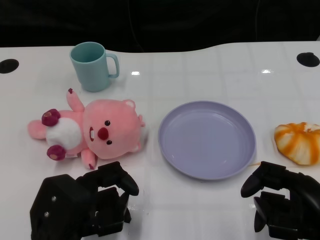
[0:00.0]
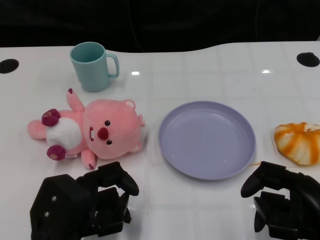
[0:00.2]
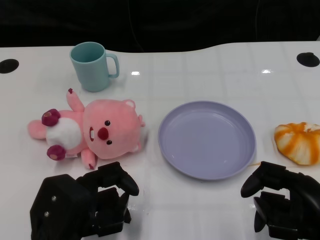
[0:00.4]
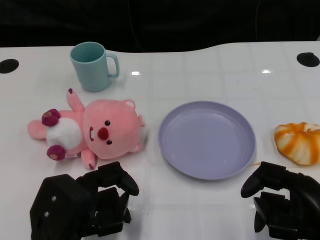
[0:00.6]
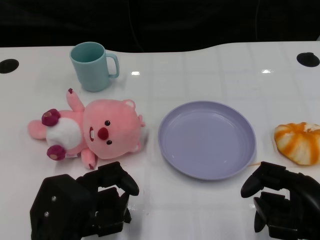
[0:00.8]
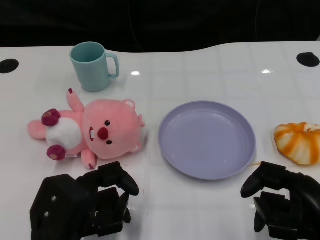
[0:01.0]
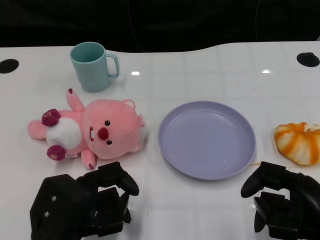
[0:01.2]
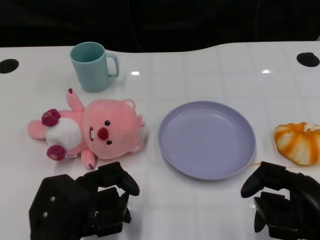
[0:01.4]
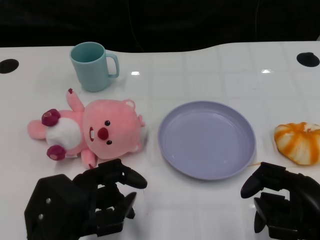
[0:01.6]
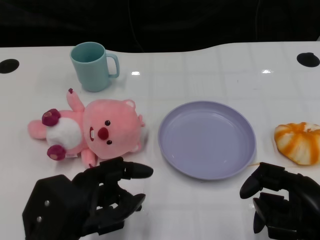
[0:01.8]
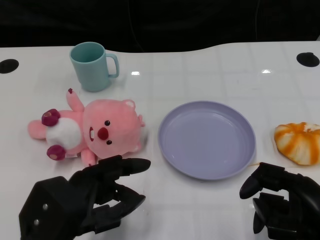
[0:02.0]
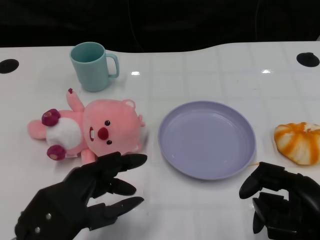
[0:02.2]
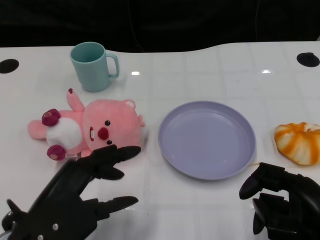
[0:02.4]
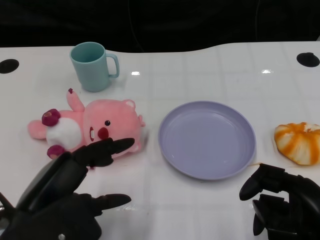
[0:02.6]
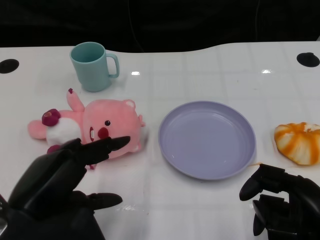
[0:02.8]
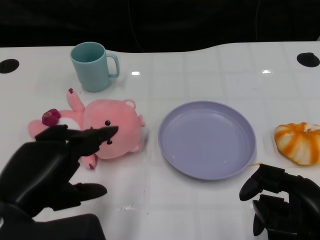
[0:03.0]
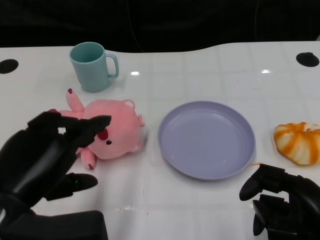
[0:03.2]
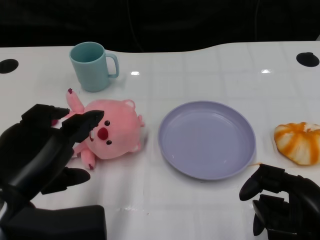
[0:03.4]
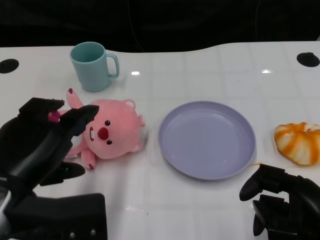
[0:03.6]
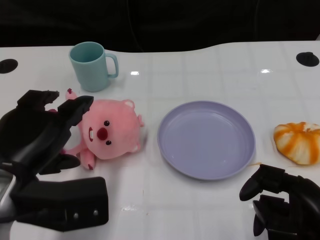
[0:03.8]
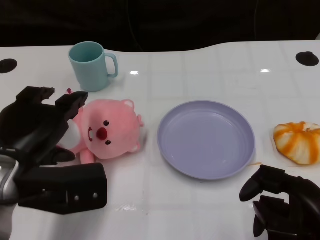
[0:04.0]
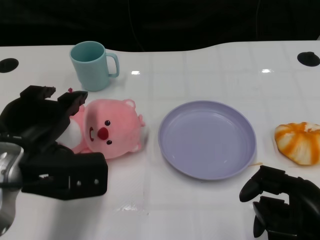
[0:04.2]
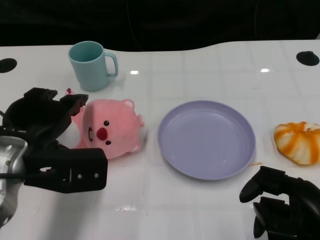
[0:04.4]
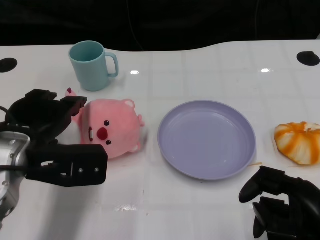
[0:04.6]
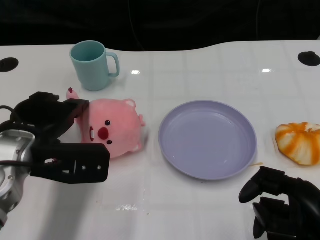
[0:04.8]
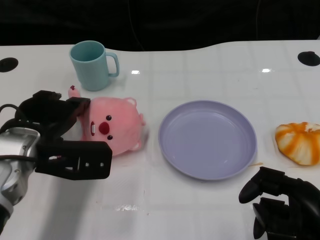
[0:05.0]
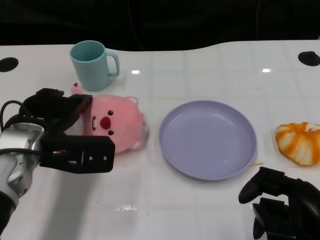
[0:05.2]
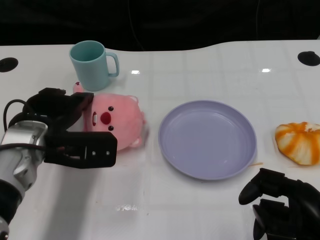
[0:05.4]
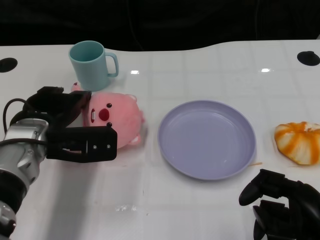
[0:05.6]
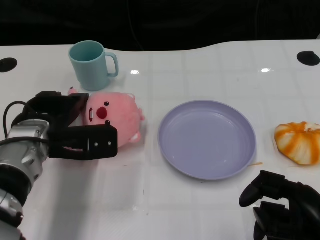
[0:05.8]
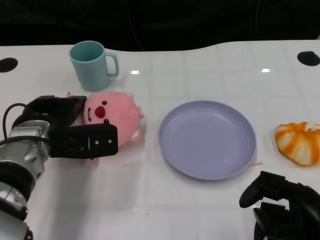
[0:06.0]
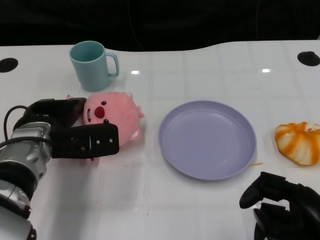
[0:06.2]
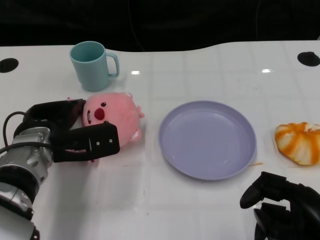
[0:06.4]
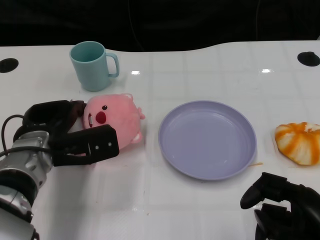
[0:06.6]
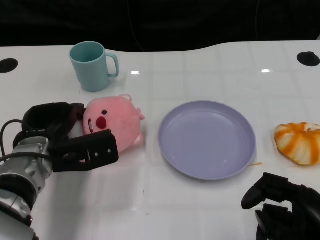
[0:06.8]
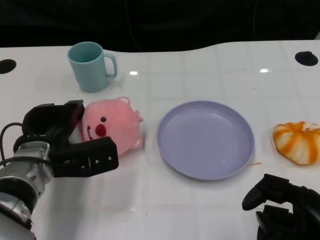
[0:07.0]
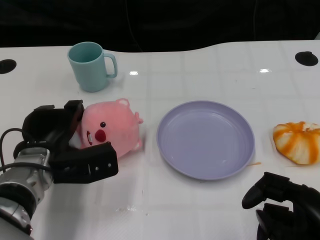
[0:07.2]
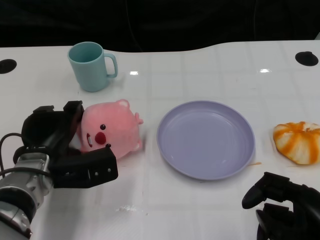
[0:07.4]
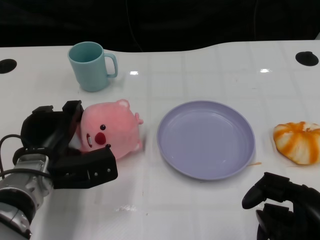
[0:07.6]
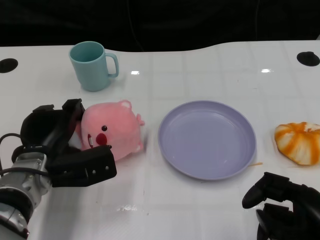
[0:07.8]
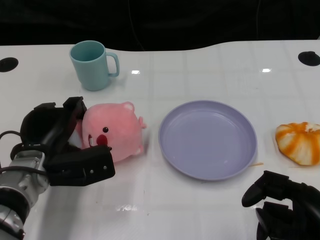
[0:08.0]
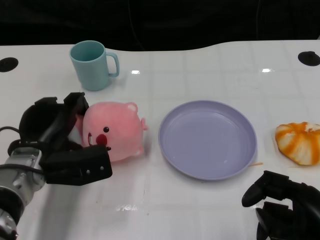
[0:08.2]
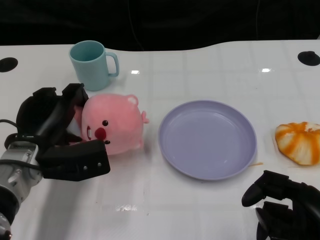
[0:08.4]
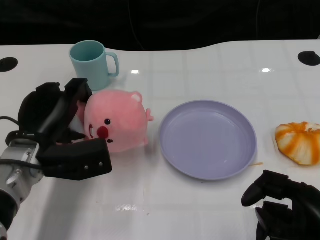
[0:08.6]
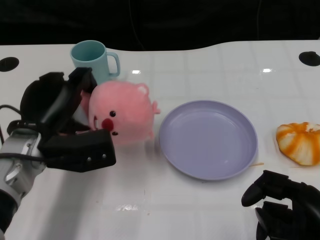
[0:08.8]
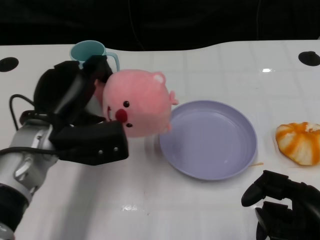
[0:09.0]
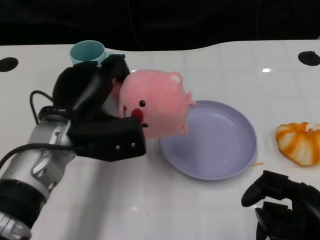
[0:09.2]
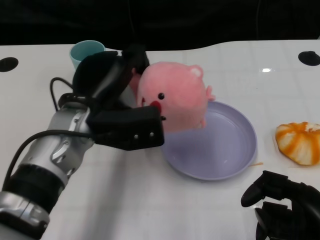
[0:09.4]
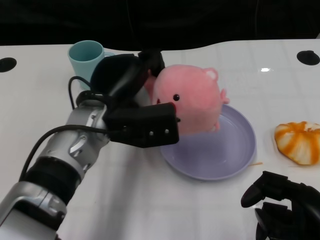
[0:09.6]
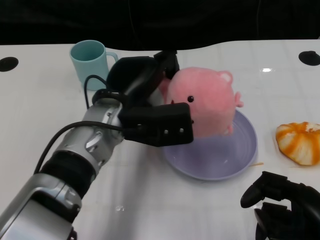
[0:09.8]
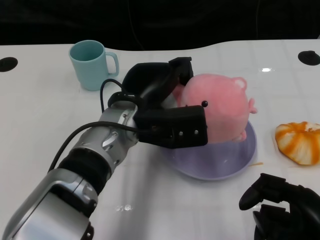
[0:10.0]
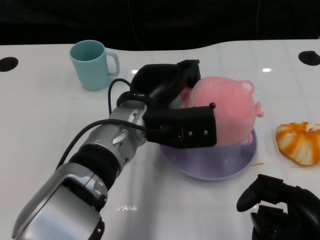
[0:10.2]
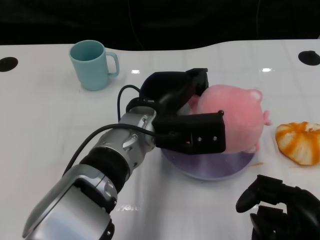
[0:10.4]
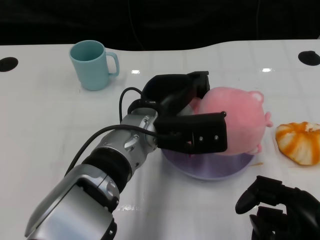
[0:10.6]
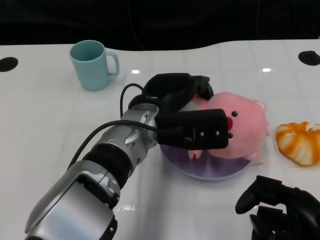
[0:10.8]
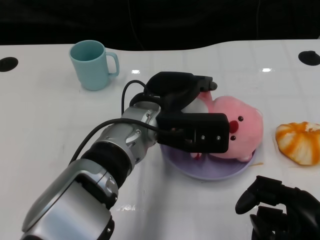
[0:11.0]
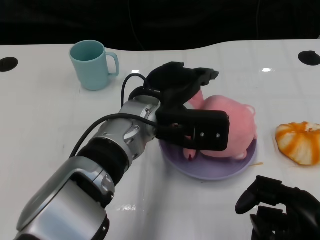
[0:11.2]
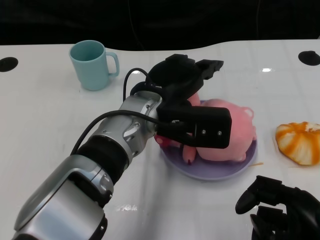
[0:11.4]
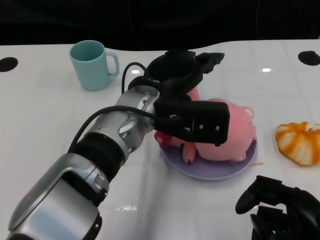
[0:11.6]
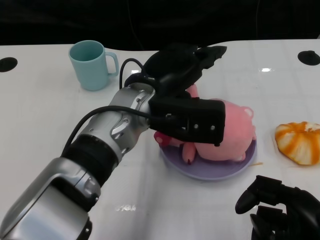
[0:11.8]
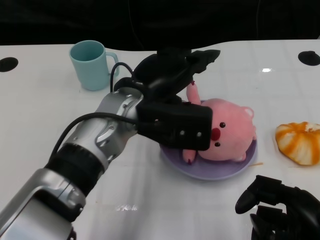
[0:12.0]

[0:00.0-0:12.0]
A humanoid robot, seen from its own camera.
Task of the whole recording: Pick up the doll on one side of the plate and place it into the plate.
Step, 1.4 to 8.2 s: Grasp the pink doll with the left gripper.
Step, 8.4 to 11.8 s: Place the pink doll into the plate with the left gripper.
1.6 to 3.0 s: The left hand goes roughly 5 cm upward.
3.0 to 4.4 s: The left hand goes approximately 10 cm forward.
4.4 to 6.0 s: The left hand heads forward, covering some 5 cm.
6.0 to 7.6 s: The left hand changes place by approximately 5 cm.
7.6 to 9.0 s: The left hand is displaced upward by some 5 cm.
9.0 to 10.4 s: The left hand travels to the right by roughly 15 cm.

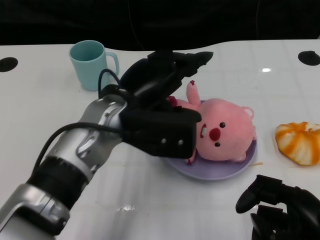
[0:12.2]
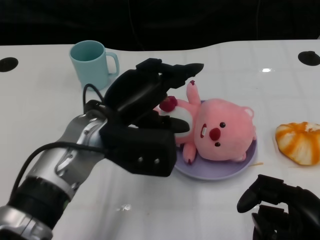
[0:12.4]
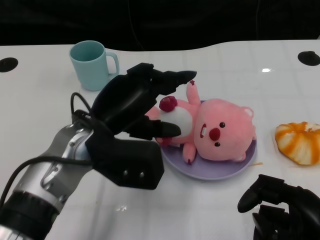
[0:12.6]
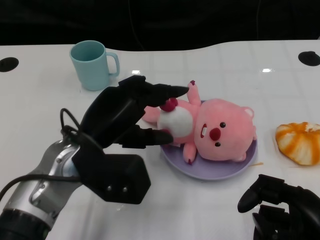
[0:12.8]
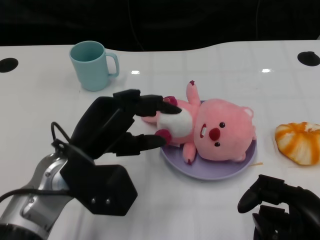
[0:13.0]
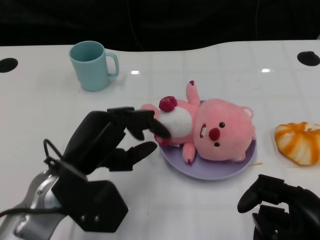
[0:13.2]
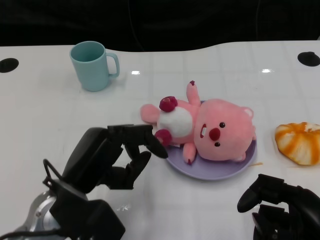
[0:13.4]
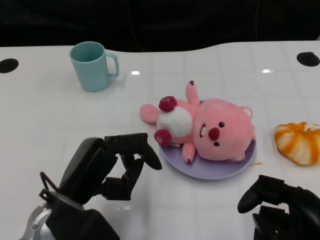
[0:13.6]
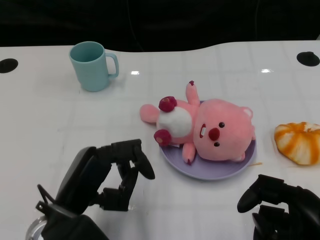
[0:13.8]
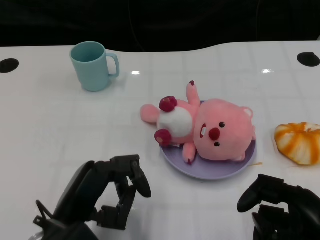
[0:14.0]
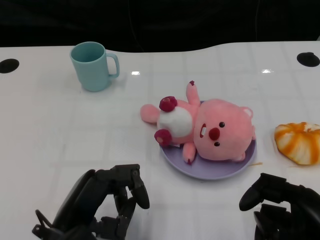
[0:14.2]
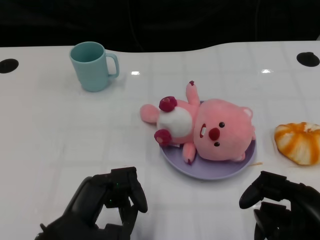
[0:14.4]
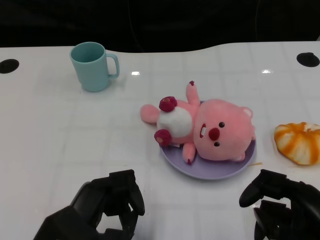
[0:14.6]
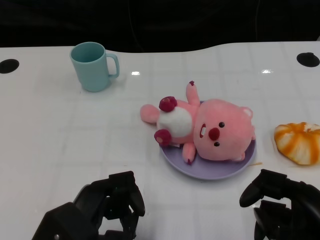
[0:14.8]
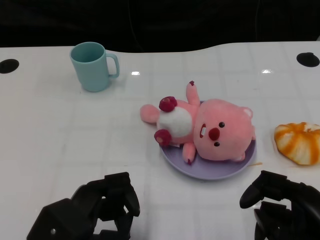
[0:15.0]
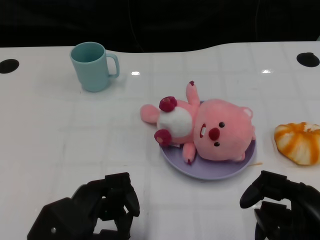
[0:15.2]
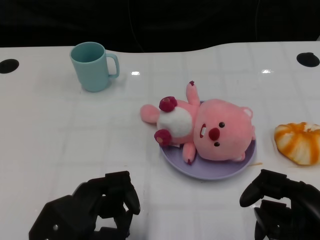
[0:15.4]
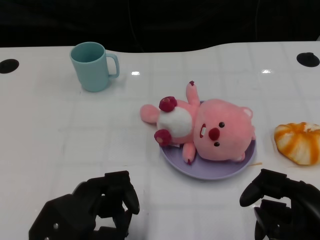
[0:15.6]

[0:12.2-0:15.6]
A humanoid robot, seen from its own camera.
Task of the whole recording: Pick up the doll on one side of the plate and place it into the plate.
12.2 to 13.8 s: The left hand goes approximately 15 cm backward, to the left and downward.

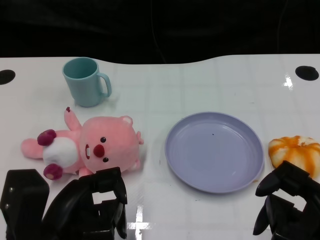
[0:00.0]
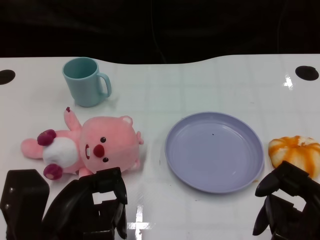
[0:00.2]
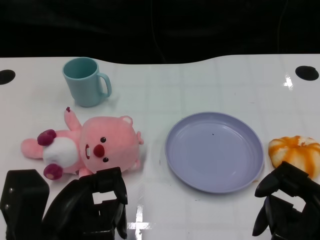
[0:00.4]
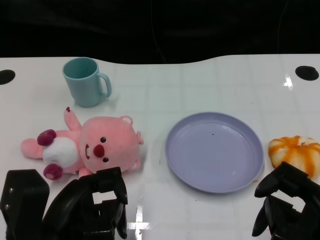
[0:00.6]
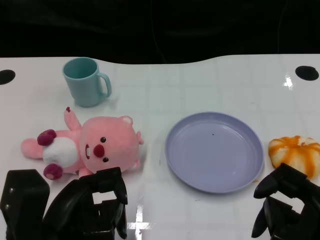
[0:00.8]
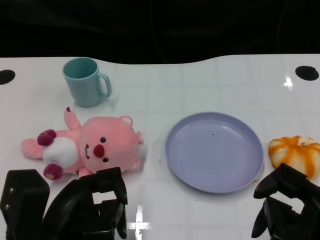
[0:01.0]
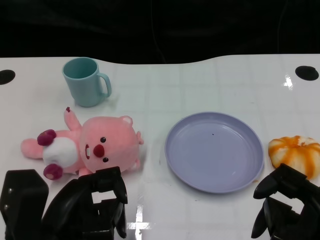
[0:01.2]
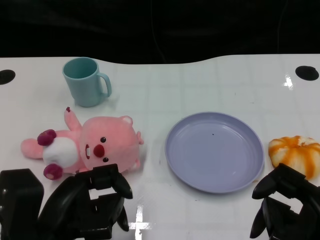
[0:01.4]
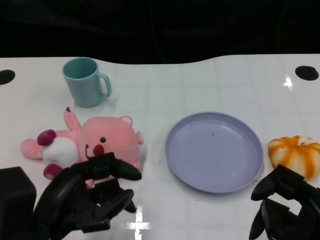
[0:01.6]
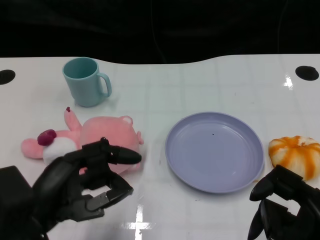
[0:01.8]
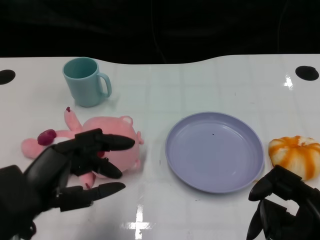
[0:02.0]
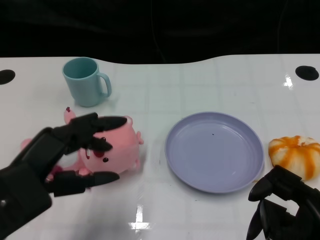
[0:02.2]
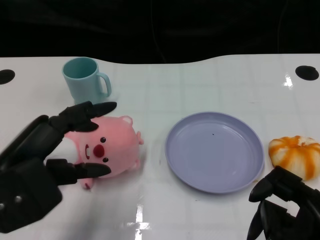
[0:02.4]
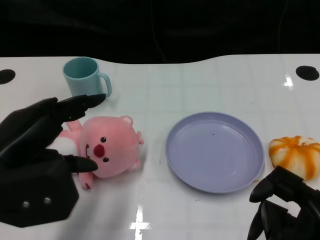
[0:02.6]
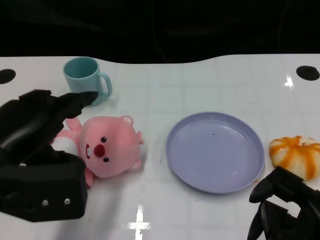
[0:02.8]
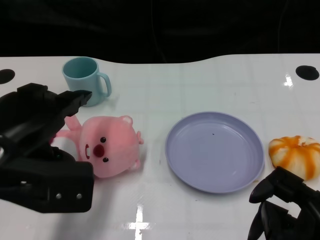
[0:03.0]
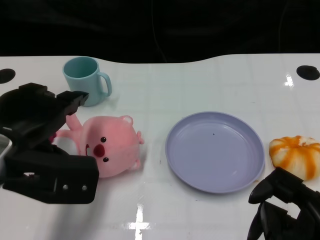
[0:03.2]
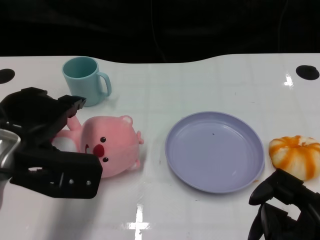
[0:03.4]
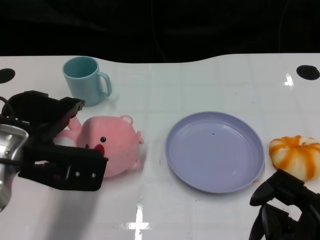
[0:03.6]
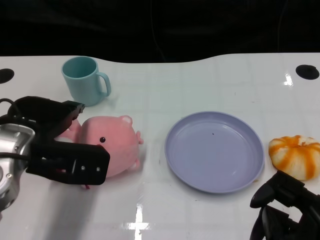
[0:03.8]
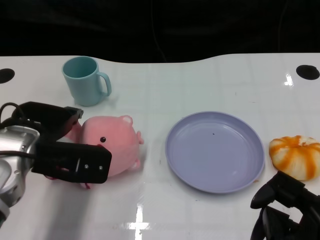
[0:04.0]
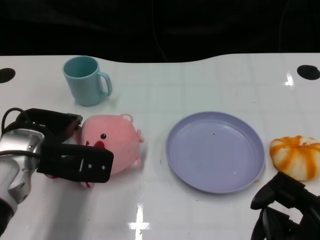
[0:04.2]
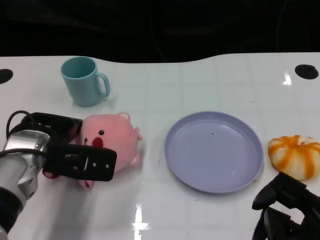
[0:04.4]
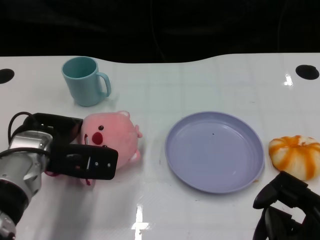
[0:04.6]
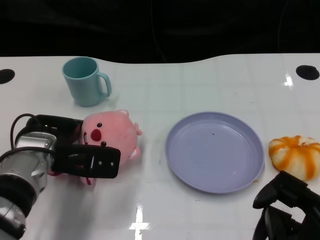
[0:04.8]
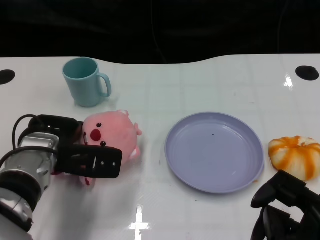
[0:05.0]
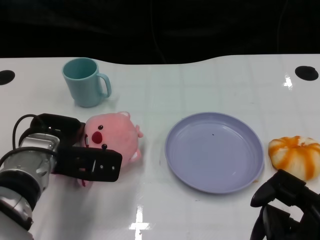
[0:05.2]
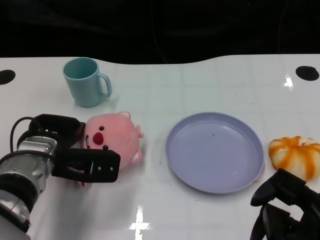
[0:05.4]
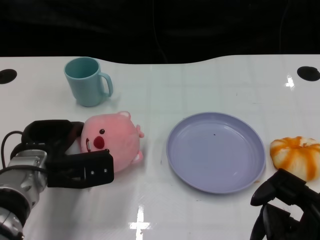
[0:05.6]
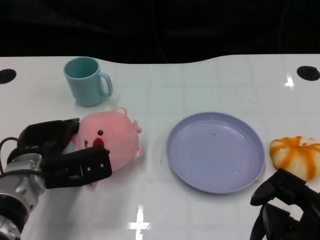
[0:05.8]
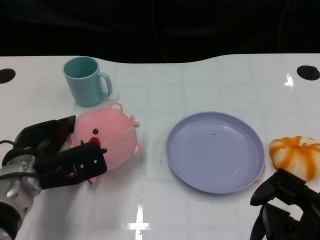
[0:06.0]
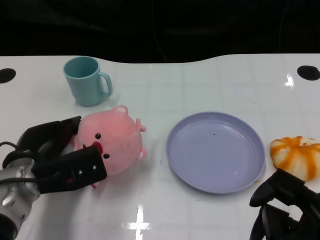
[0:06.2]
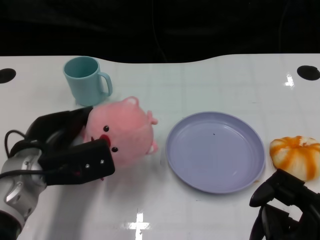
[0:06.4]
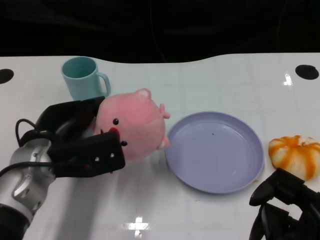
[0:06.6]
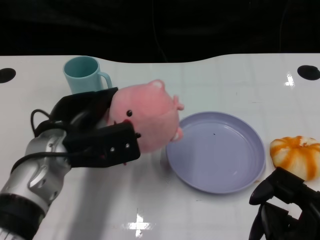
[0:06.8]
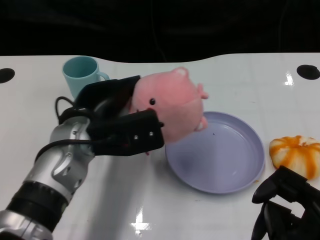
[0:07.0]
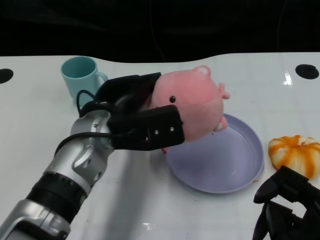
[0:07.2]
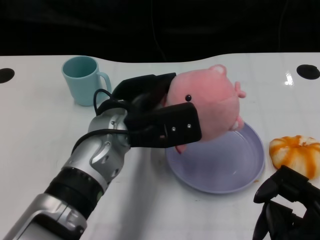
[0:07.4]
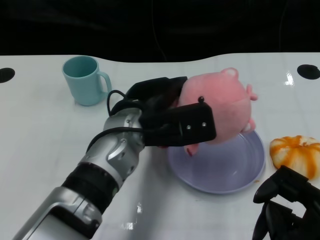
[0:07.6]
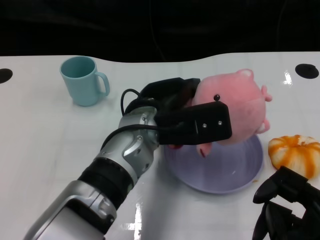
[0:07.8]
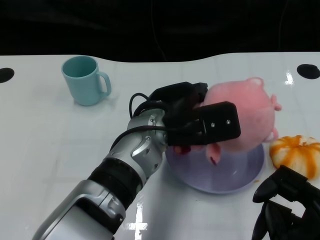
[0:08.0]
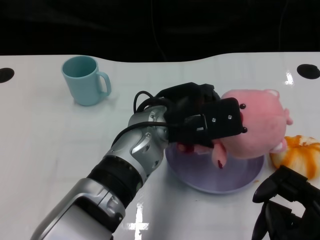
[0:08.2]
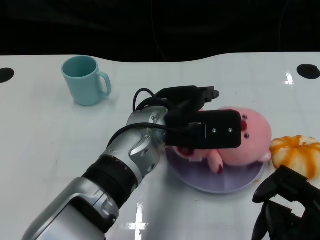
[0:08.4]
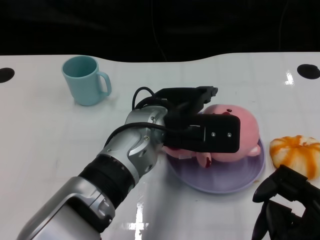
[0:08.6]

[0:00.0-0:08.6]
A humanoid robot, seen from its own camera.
Task of the whole recording: Pick up the doll on one side of the plate and place it into the plate.
Step, 1.2 to 6.0 s: Grasp the pink doll with the left gripper.
Step, 6.2 to 8.4 s: Place the pink doll into the plate with the left gripper.
1.4 to 2.8 s: The left hand heads upward, covering approximately 10 cm.
2.8 to 4.4 s: The left hand shifts approximately 10 cm forward and downward.
4.4 to 5.8 s: The left hand shifts roughly 5 cm downward.
5.8 to 7.2 s: The left hand travels to the right and upward by roughly 15 cm.
7.2 to 8.6 s: The left hand goes some 5 cm to the right.
